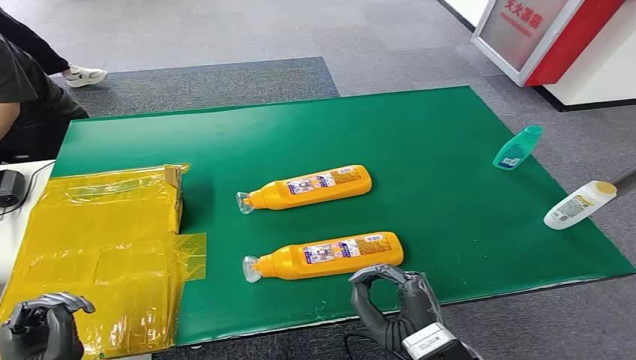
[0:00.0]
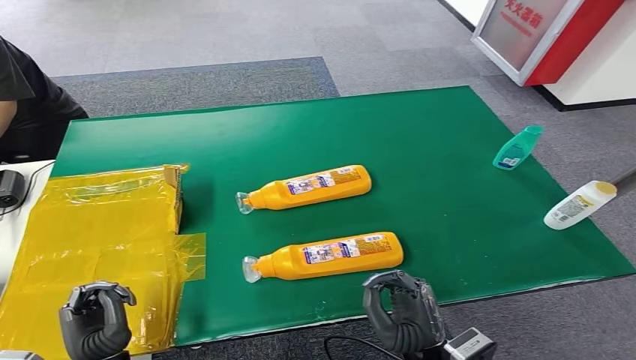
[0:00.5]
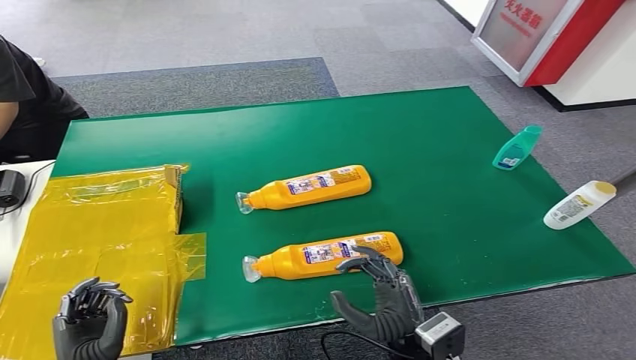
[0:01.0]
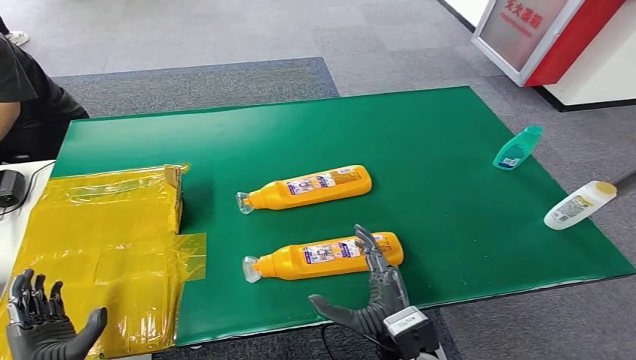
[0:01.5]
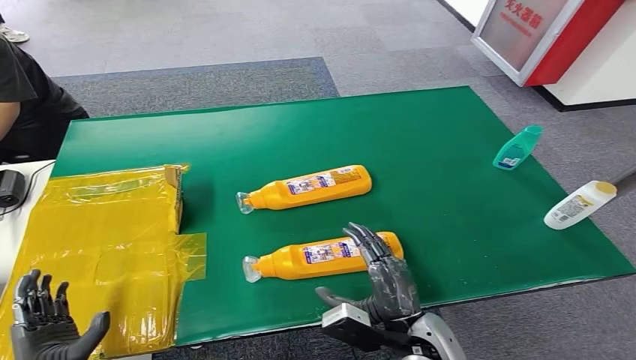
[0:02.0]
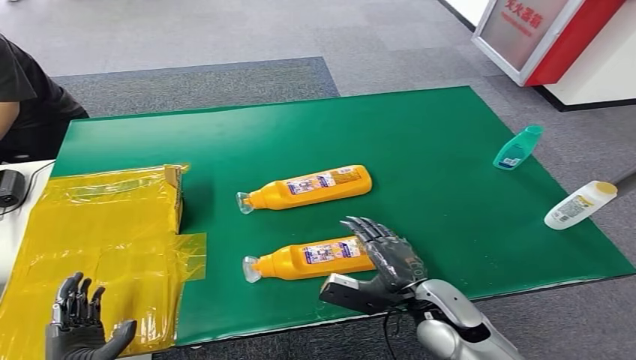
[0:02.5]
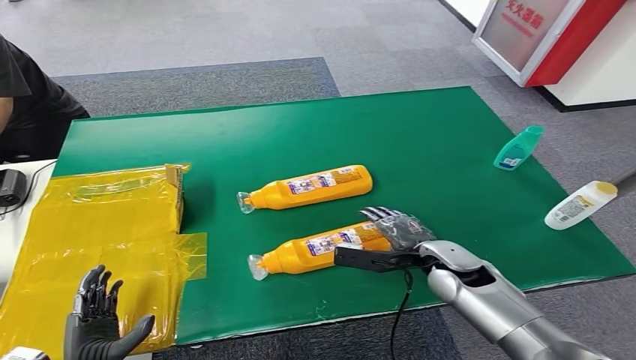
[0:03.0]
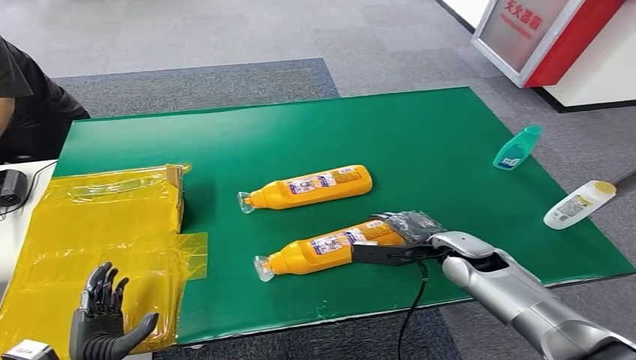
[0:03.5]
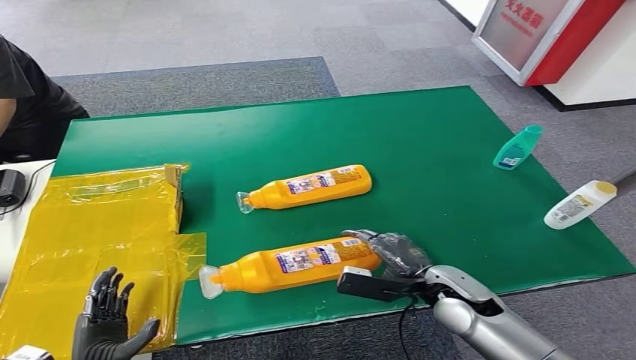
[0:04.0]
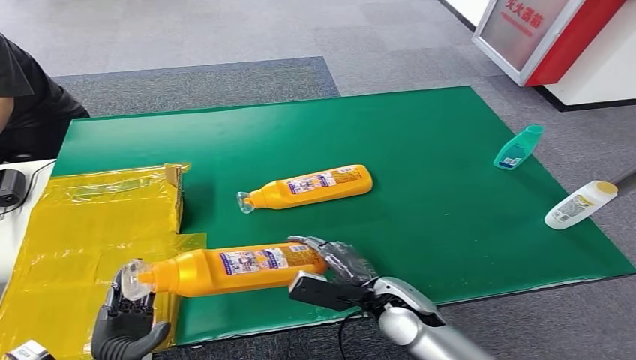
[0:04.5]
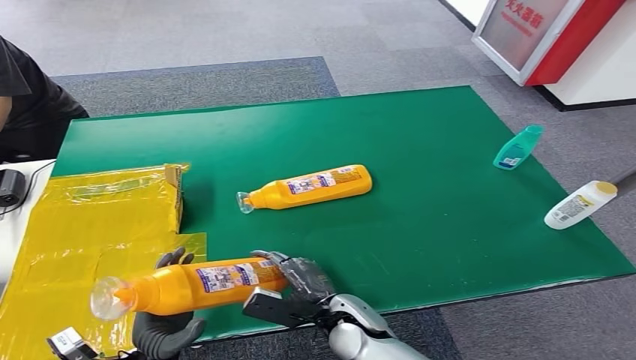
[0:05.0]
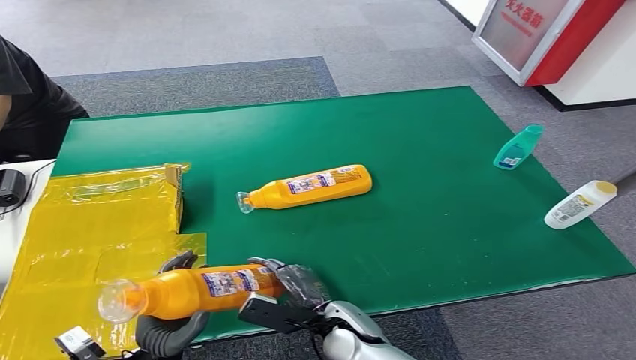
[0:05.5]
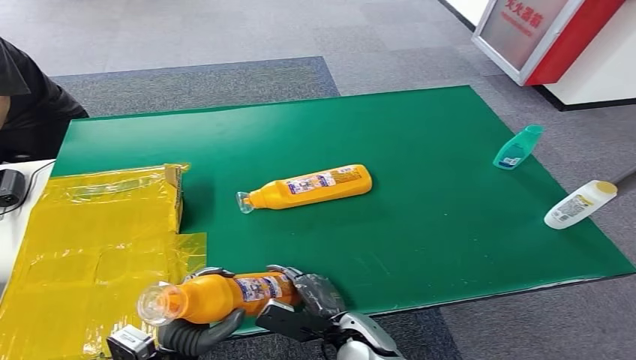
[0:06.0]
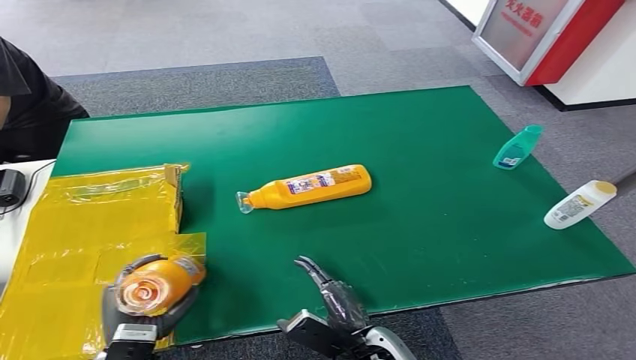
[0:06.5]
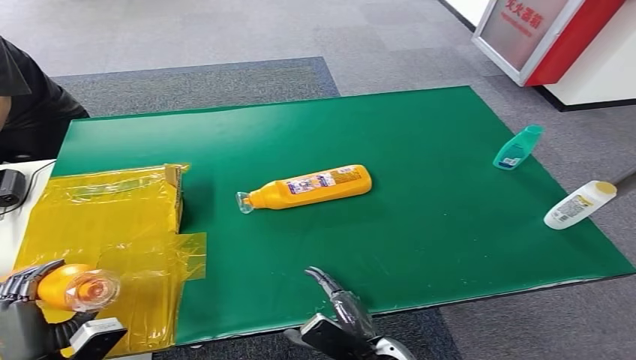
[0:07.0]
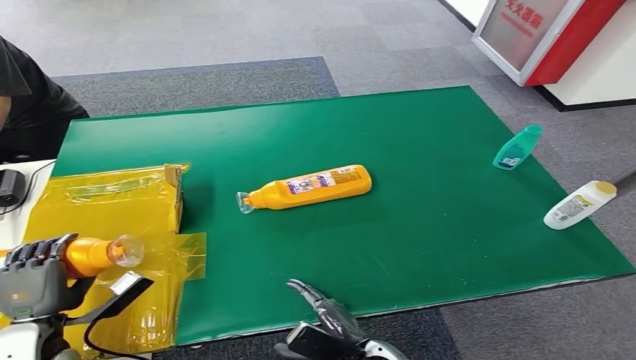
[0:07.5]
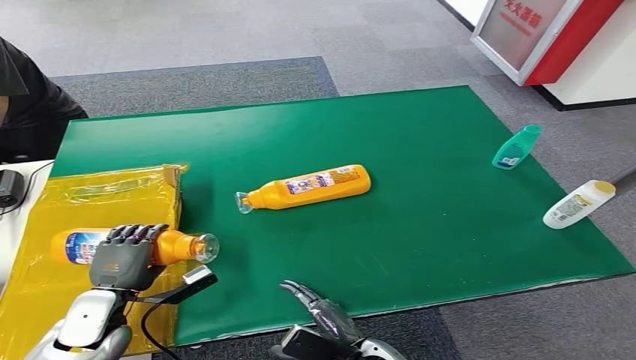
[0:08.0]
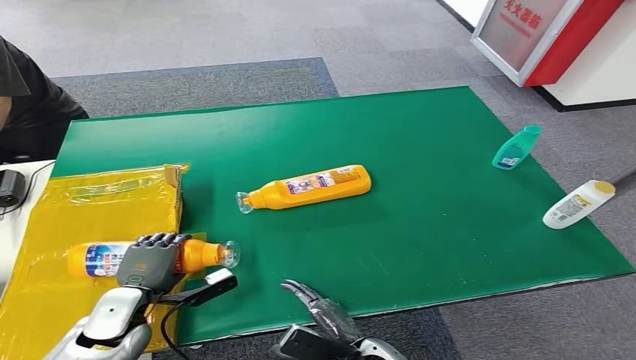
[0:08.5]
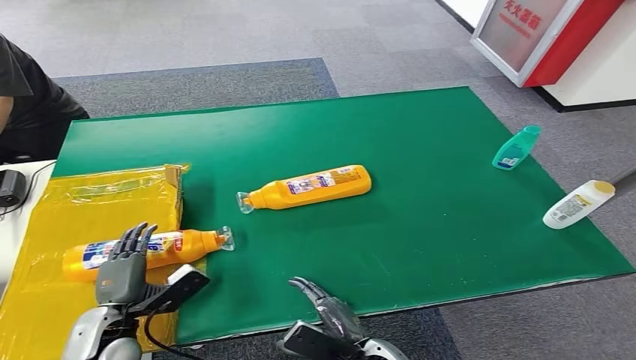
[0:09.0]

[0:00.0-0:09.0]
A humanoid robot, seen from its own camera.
Step, 0:00.0 to 0:04.0: Pick up the bottle from the table.
Step, 0:04.5 to 0:09.0: Turn the bottle to the front side.
0:02.0 to 0:04.5: The right hand moves forward, roughly 10 cm.
0:04.5 to 0:07.0: The left hand is displaced to the left and upward by roughly 10 cm; the right hand goes some 10 cm backward and downward.
0:07.0 to 0:09.0: The left hand moves forward and to the right, about 10 cm.
